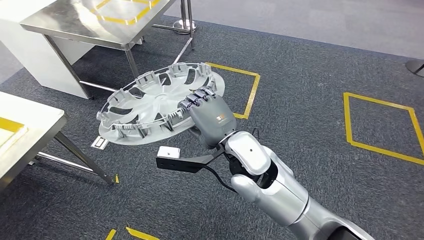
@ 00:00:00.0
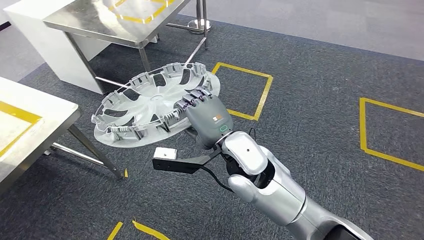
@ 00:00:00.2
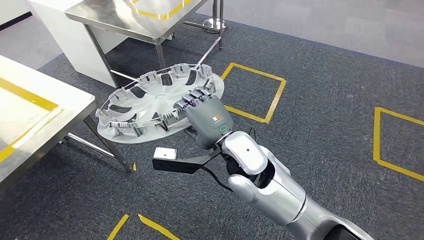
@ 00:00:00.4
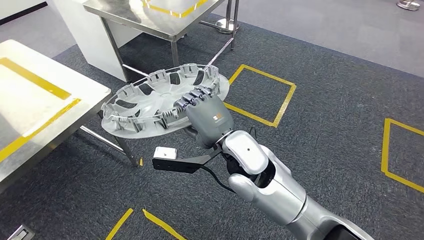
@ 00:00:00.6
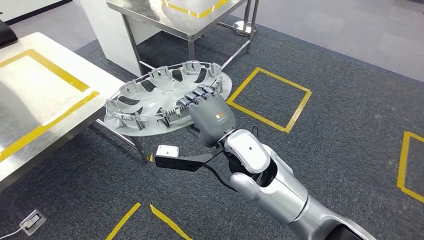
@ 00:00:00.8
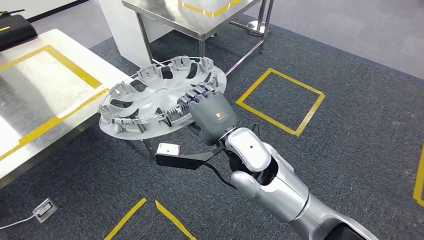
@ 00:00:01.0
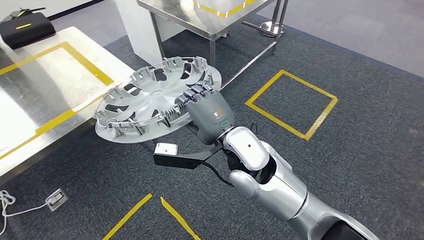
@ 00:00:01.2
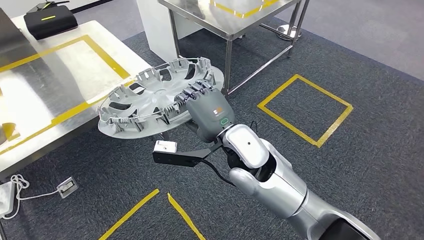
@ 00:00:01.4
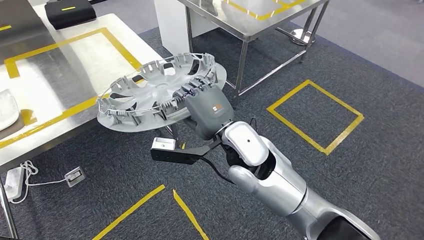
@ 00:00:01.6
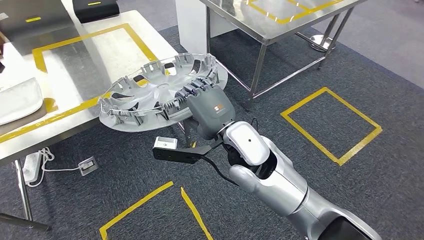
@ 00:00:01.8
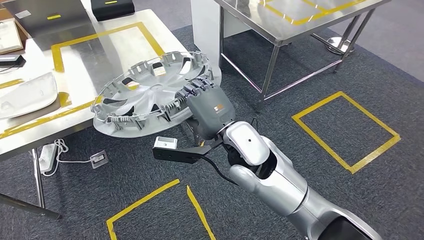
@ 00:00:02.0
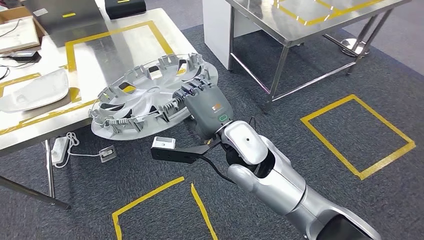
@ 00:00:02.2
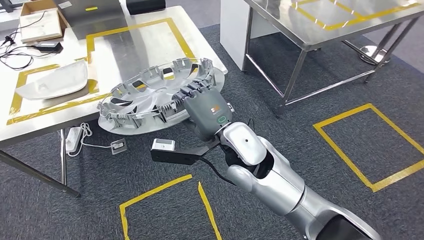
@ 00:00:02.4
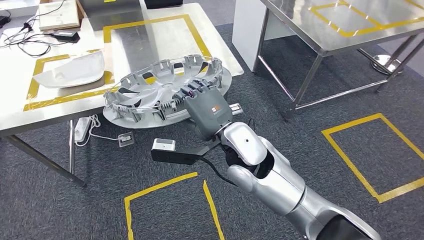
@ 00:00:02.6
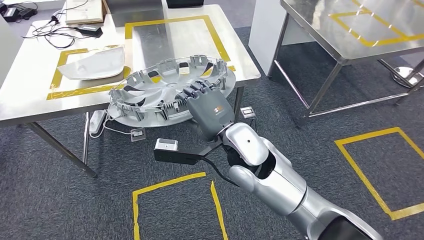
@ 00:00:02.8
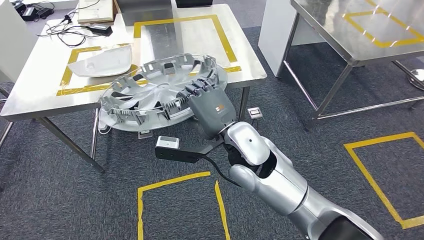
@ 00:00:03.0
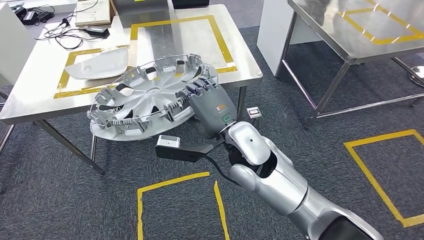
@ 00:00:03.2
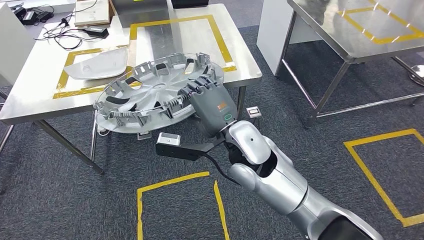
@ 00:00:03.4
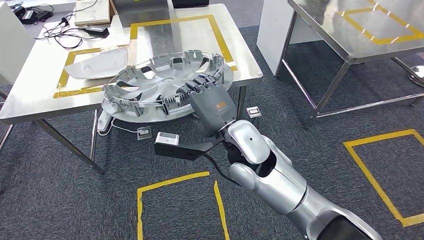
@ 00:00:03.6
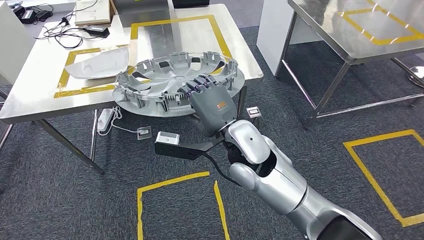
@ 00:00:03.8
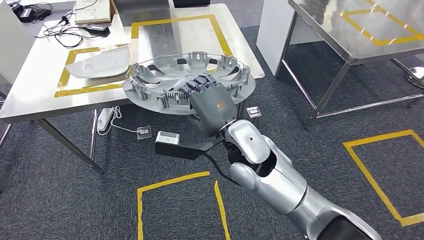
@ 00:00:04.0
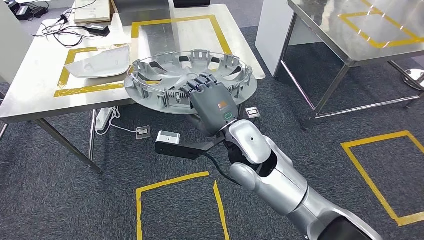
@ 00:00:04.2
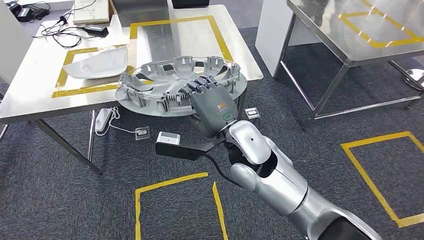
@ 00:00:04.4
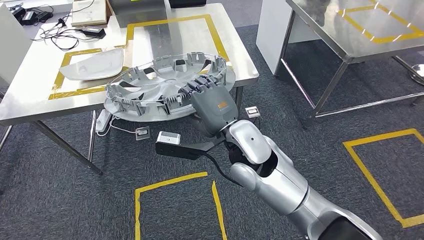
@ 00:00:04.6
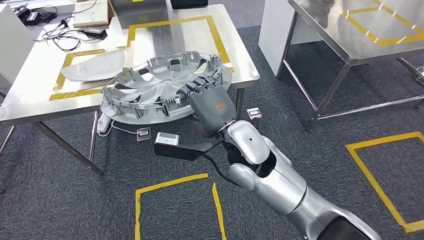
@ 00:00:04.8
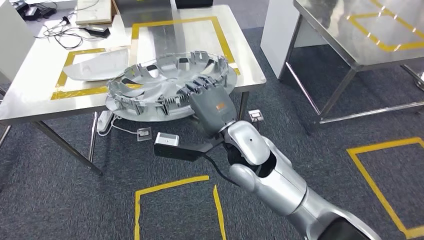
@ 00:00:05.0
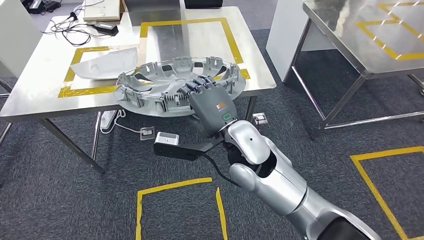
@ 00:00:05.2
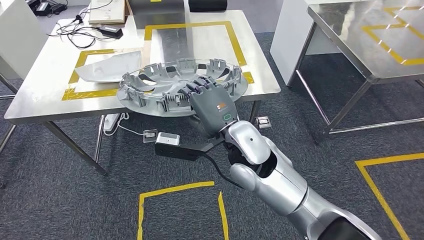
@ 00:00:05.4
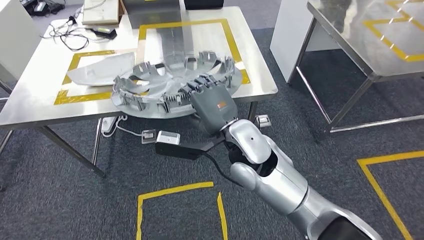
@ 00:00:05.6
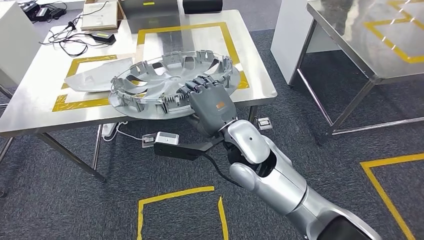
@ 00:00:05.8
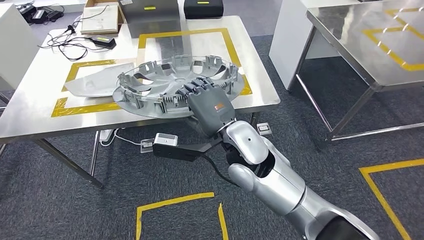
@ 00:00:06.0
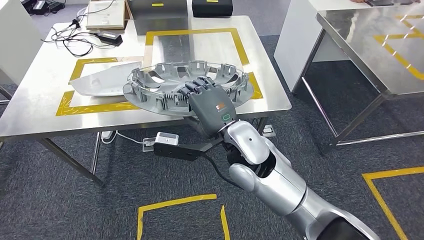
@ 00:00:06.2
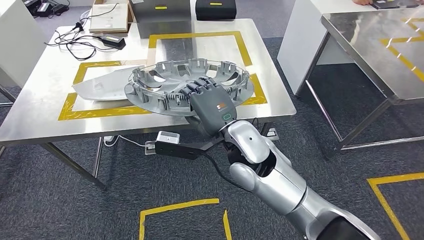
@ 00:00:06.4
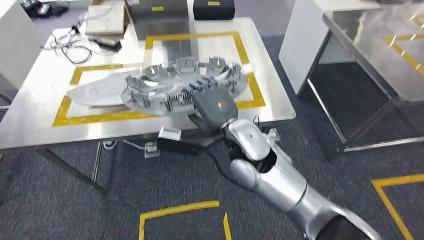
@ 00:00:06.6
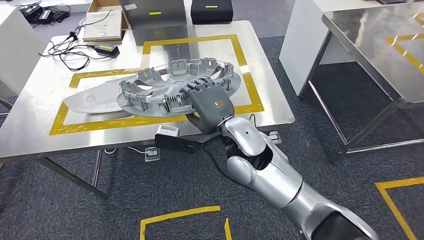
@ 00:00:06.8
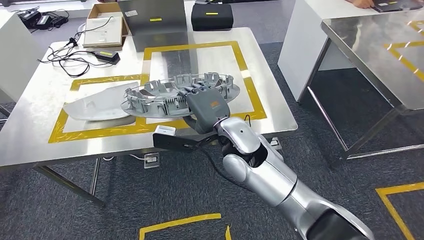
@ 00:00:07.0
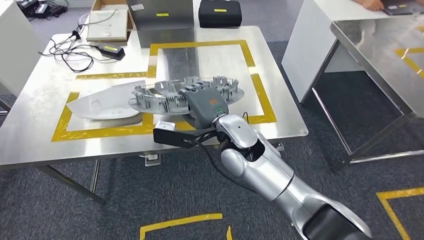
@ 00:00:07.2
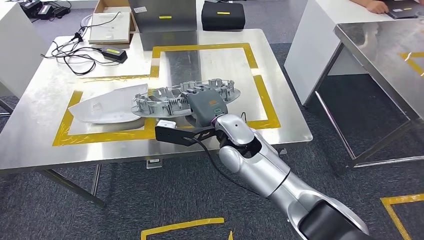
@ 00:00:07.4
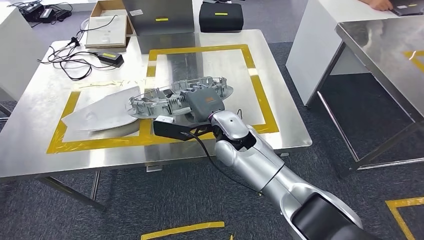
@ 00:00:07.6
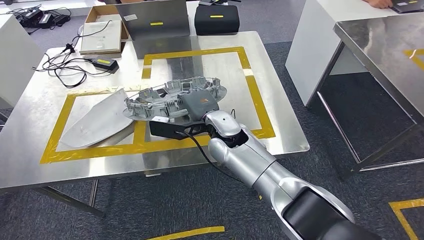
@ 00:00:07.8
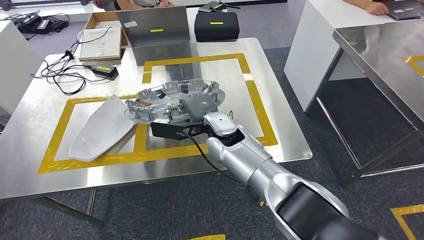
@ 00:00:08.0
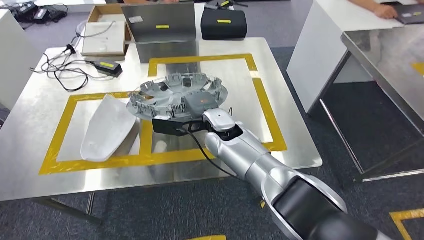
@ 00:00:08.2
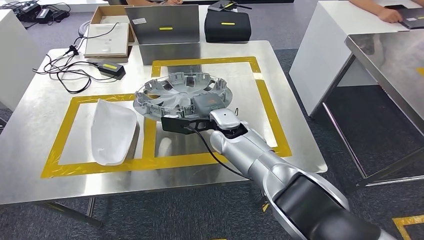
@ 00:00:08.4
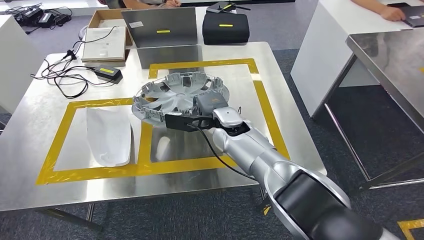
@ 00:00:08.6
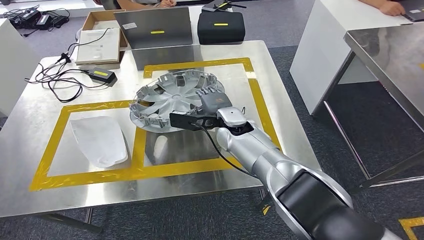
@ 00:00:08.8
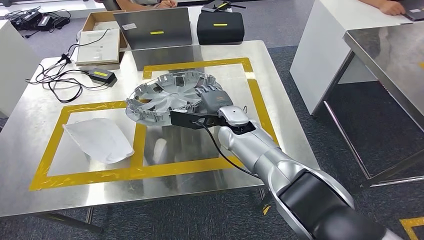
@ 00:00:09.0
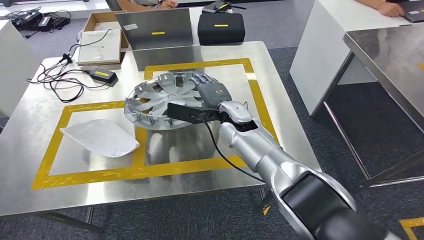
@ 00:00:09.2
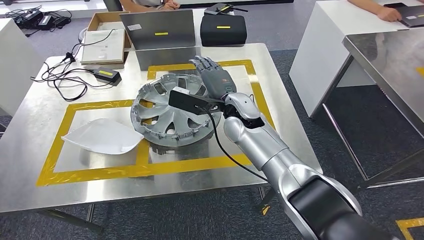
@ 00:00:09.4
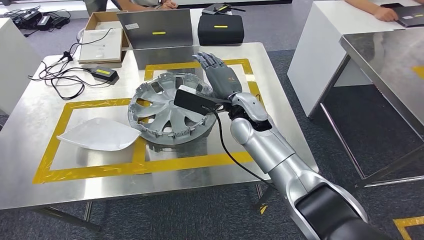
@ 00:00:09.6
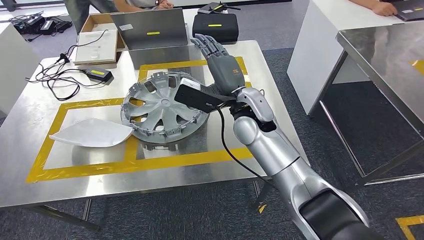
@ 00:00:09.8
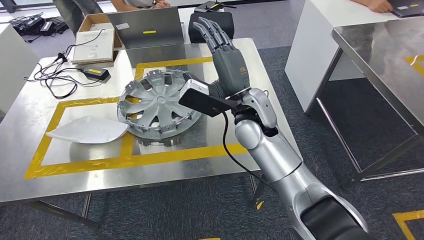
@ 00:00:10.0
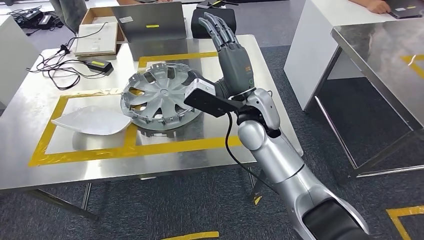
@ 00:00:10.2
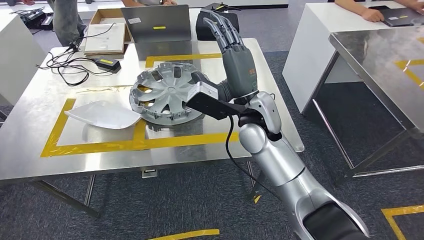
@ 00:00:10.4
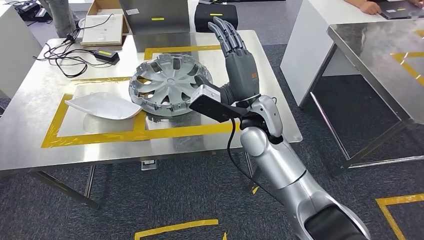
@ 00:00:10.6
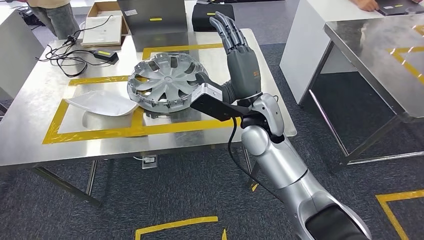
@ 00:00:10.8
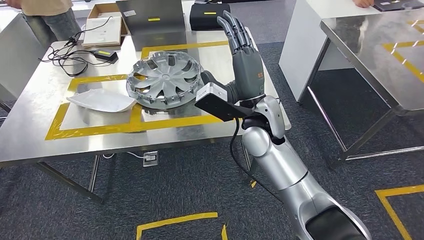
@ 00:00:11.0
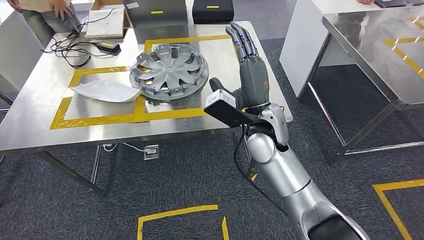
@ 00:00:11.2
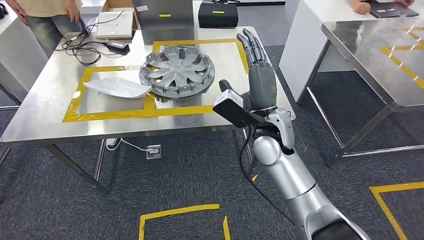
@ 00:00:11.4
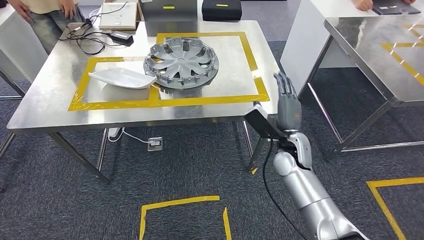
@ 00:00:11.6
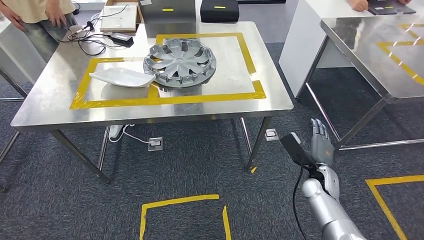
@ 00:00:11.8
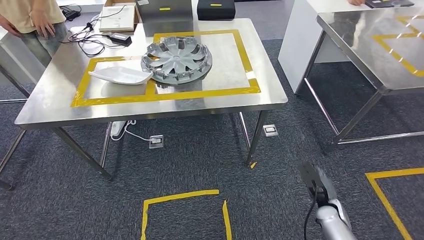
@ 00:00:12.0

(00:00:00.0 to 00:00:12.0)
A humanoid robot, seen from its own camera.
Step, 00:00:00.0 - 00:00:04.6: Move the small parts to the workbench.
Step, 00:00:05.0 - 00:00:10.2: Insert the small parts into the corresponding slots on the workbench.
00:00:03.0 - 00:00:04.4: Neither hand changes place.

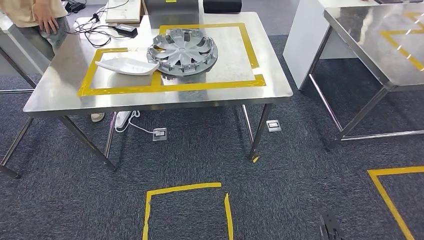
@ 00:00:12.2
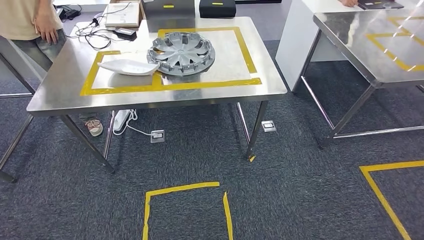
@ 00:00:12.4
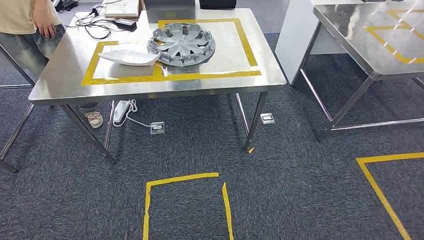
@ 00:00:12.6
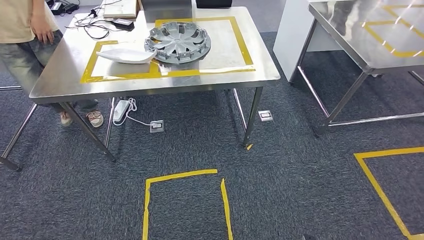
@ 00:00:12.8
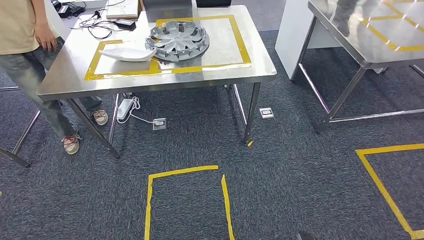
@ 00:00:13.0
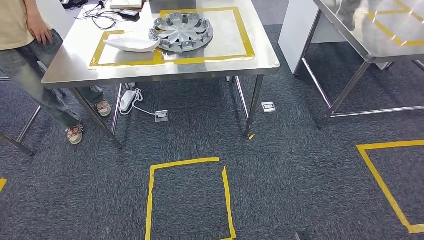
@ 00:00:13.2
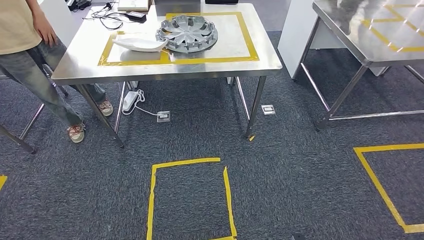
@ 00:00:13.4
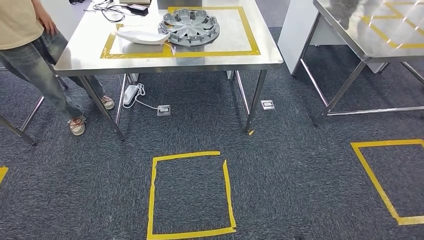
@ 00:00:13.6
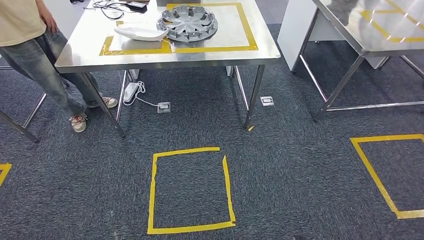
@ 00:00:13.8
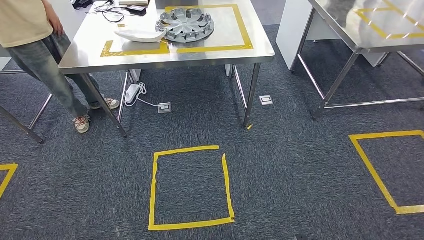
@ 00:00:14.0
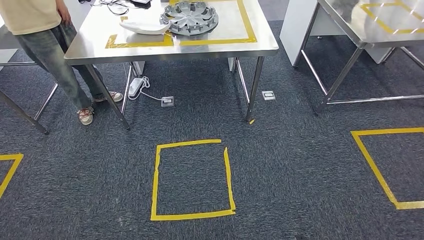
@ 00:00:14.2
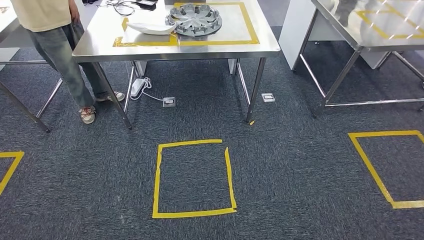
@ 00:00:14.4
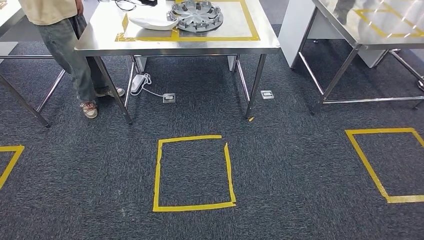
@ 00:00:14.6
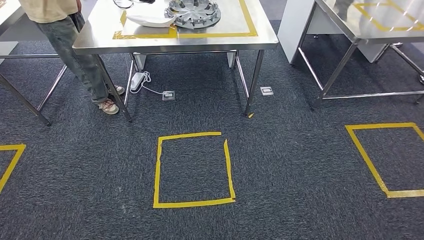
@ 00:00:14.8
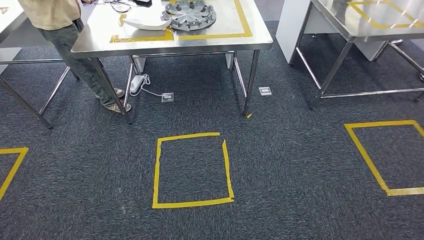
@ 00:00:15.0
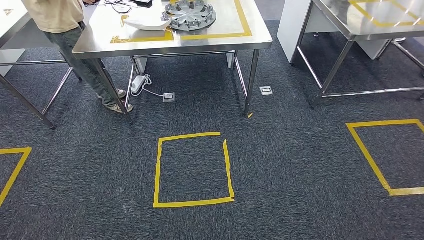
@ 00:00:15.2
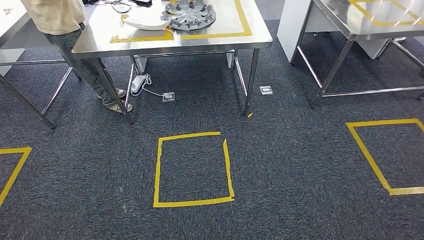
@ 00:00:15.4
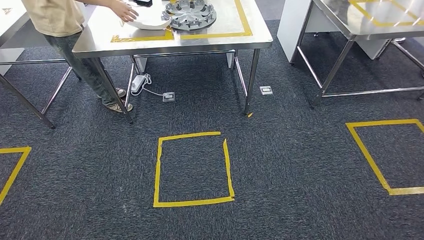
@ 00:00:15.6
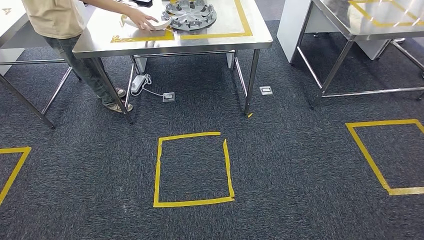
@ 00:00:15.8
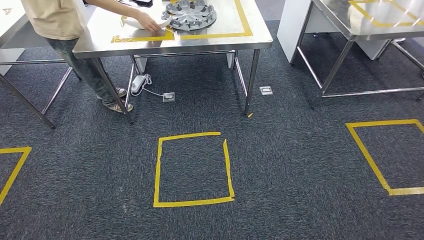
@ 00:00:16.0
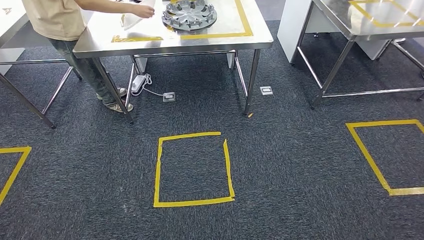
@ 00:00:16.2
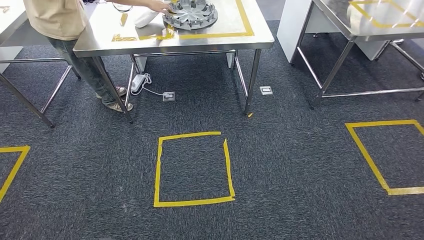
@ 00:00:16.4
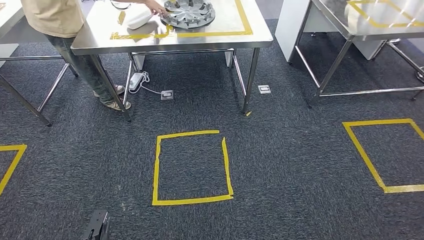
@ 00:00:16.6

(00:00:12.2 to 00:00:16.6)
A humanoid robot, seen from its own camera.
Step, 00:00:12.2 - 00:00:16.6: Return to the initial position at the workbench.
00:00:15.2 - 00:00:16.6: The left hand travels forward by about 10 cm. Meanwhile the right hand travels backward by roughly 20 cm.
